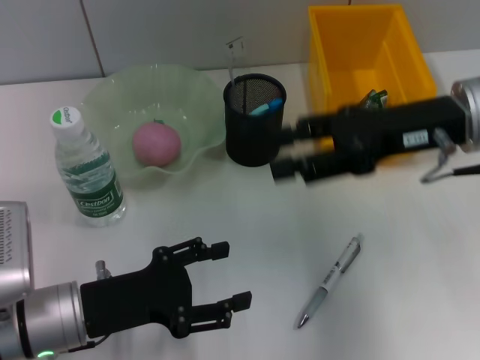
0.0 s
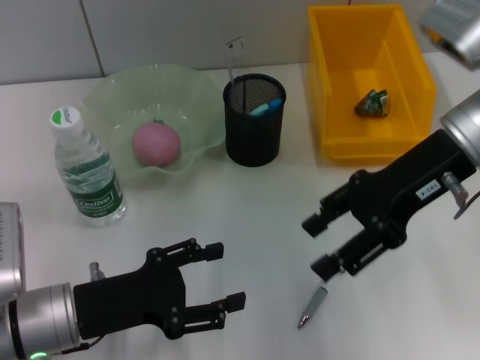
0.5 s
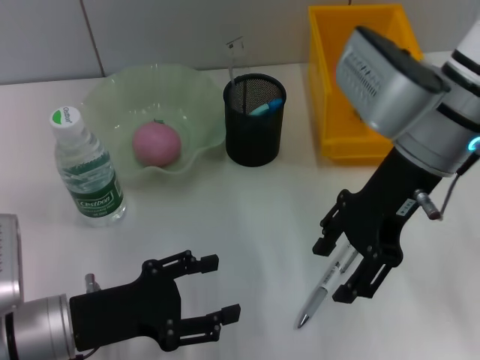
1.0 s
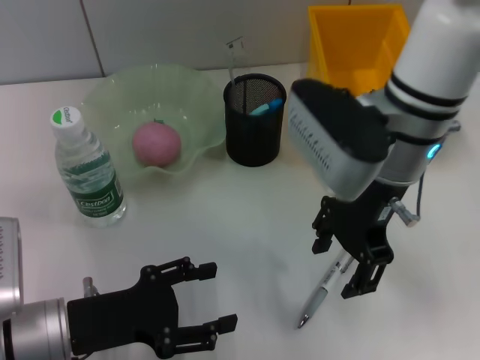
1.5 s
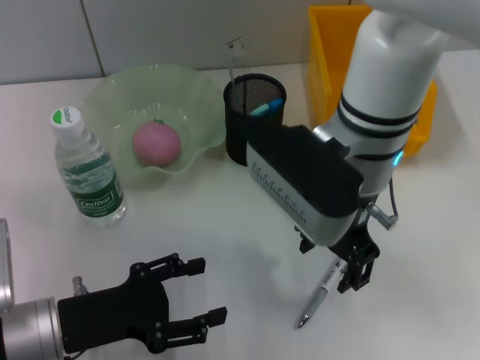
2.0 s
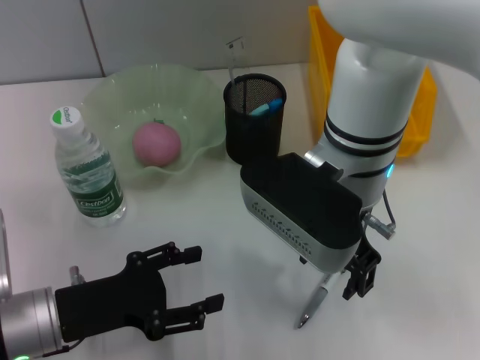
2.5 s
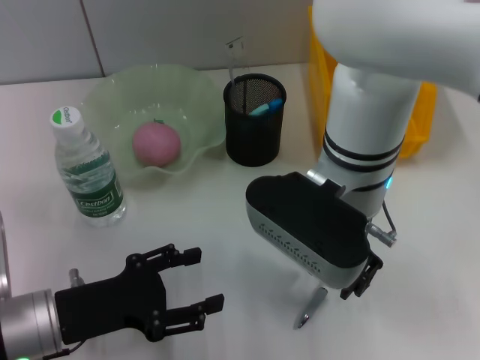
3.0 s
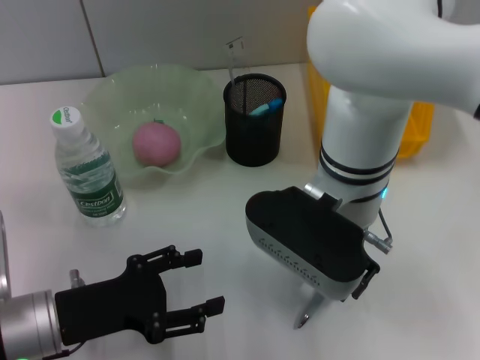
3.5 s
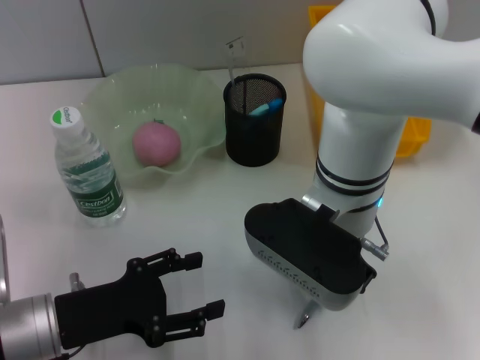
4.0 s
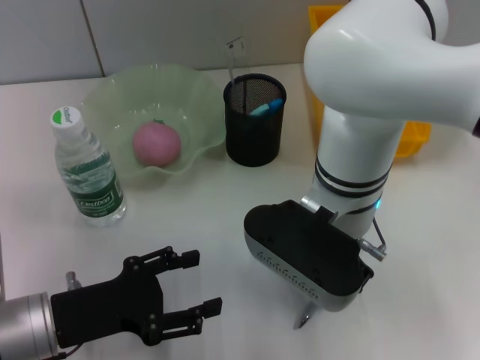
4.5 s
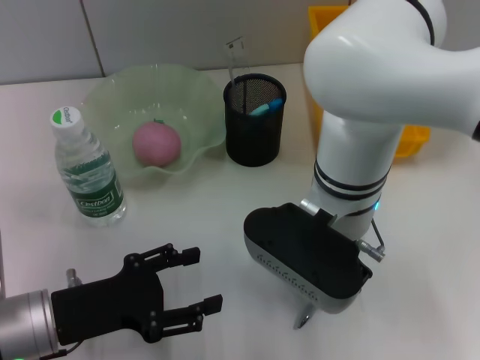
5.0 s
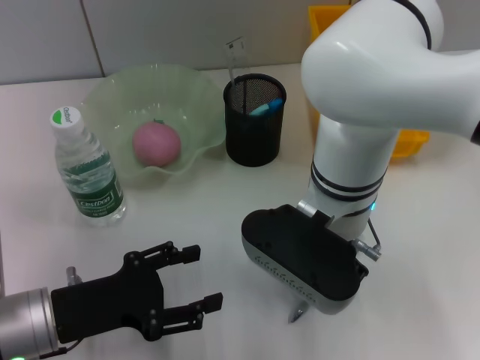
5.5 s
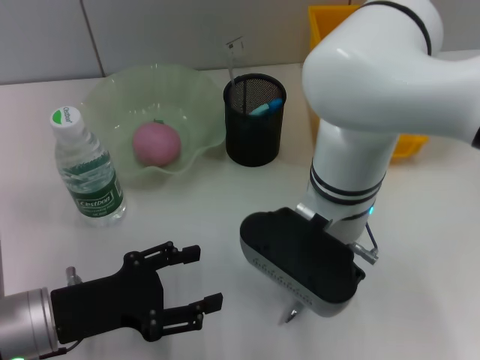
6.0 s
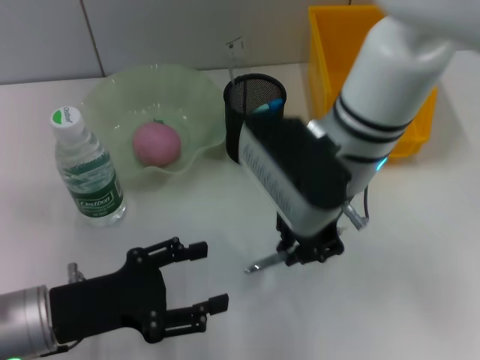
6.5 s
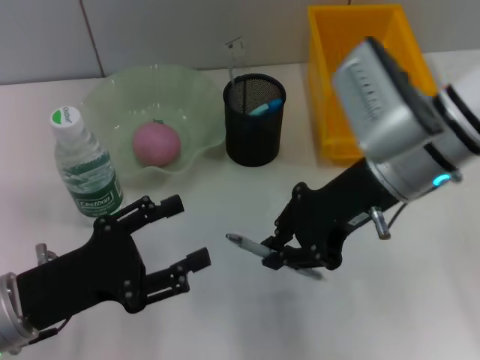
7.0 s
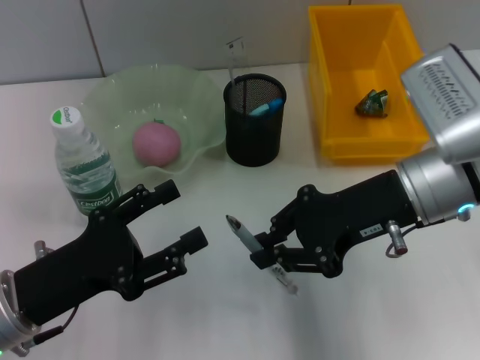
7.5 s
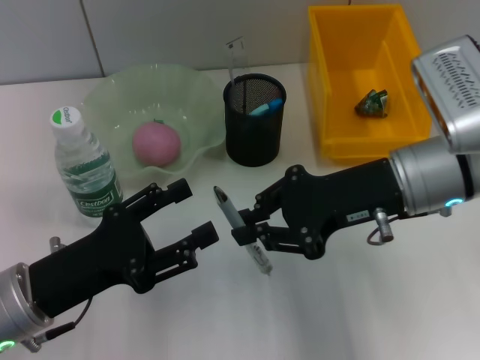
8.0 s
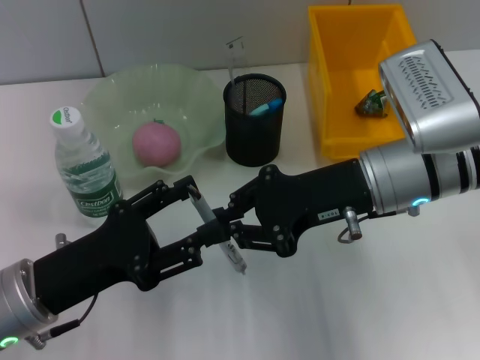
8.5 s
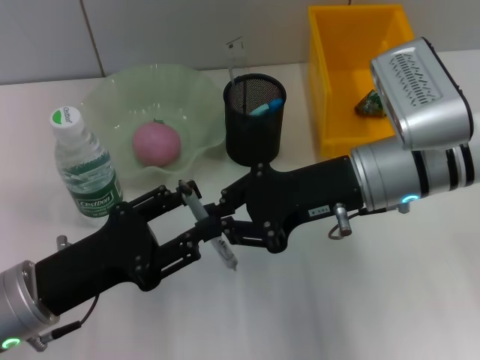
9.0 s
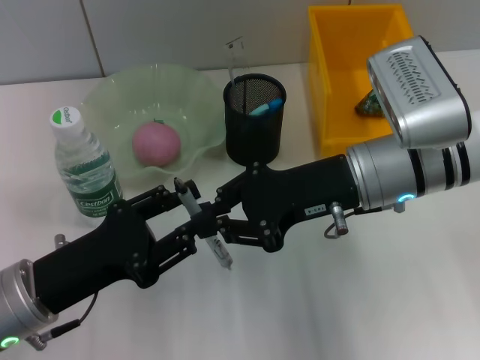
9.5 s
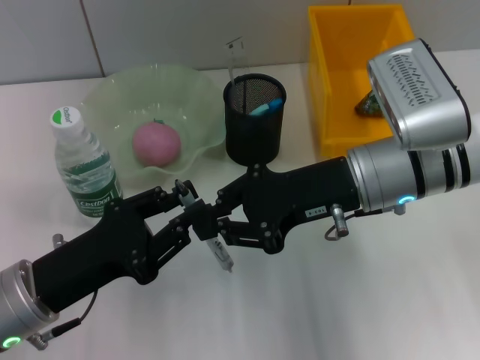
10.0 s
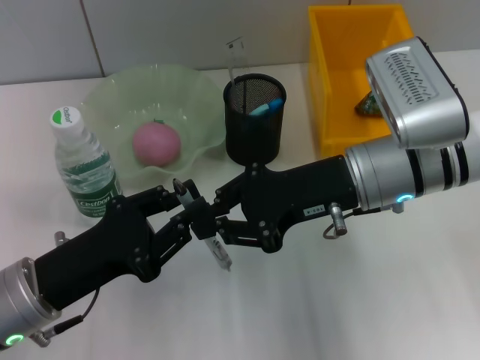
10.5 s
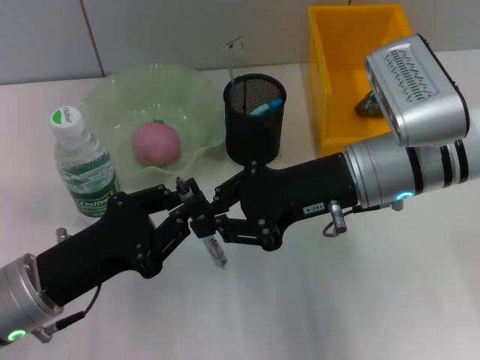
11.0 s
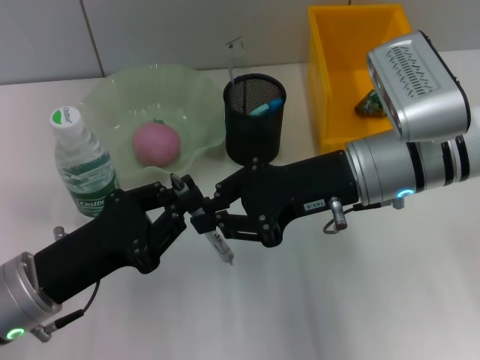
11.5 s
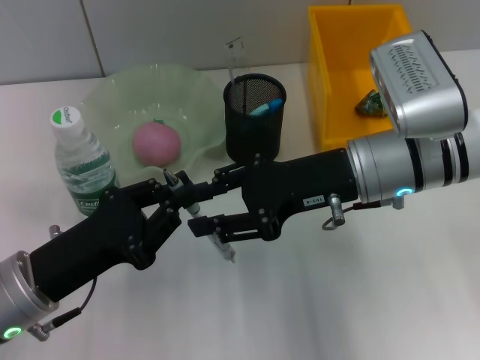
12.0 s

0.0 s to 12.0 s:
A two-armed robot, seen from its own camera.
Step, 0.0 to 5.5 s: Grab the gray spring-action pen with the right hand.
Step, 6.0 to 11.0 s: Pass the gray spring-action pen from the right hand to the left hand.
0.0 to 2.0 s: The right gripper goes about 15 cm to the left.
4.0 to 6.0 s: The right gripper closes up.
6.0 to 8.0 s: The right gripper moves to the right, about 10 cm.
8.0 to 10.0 s: The left gripper closes up.
10.0 to 12.0 s: The left gripper closes.

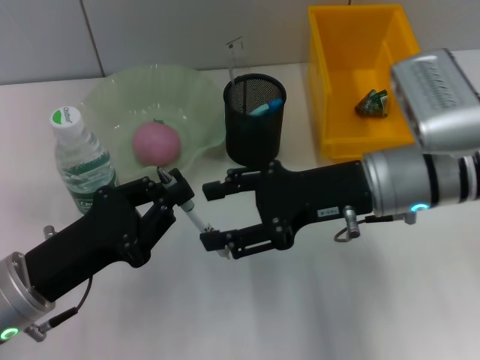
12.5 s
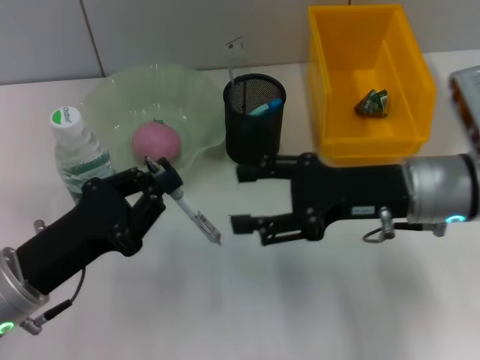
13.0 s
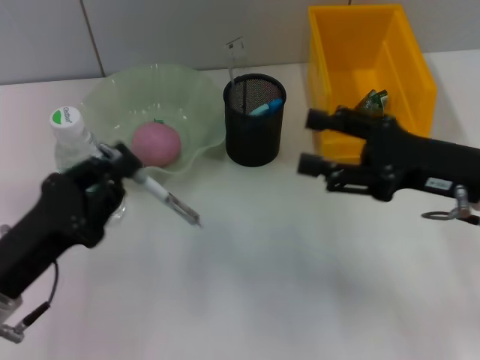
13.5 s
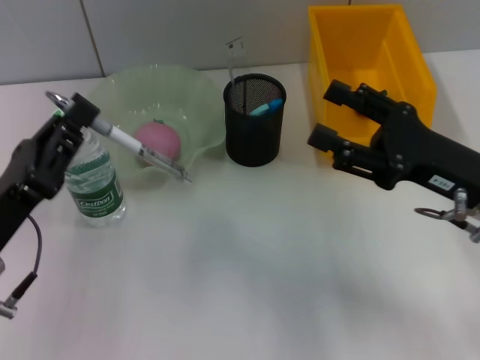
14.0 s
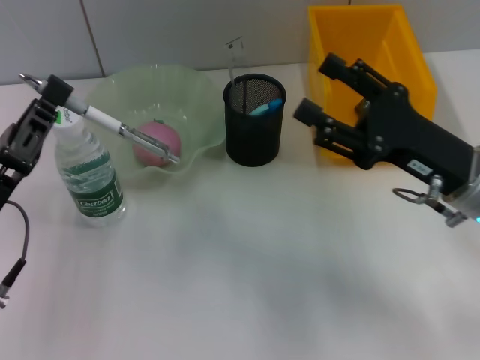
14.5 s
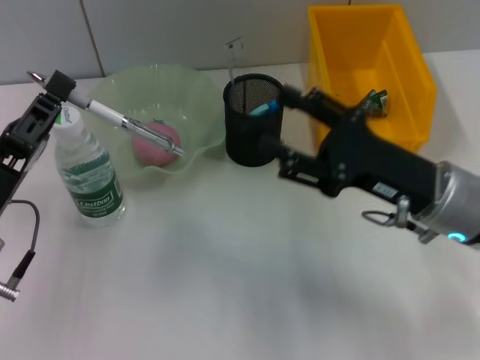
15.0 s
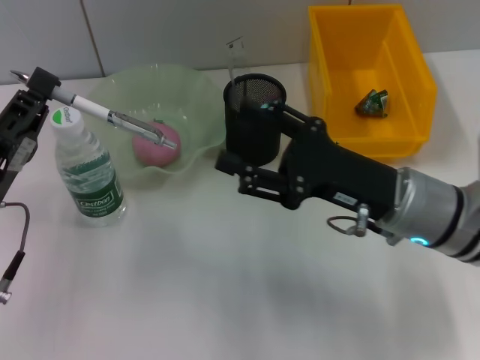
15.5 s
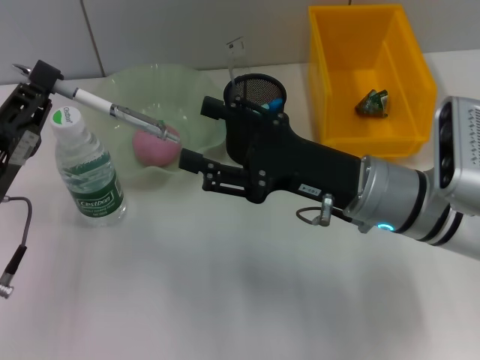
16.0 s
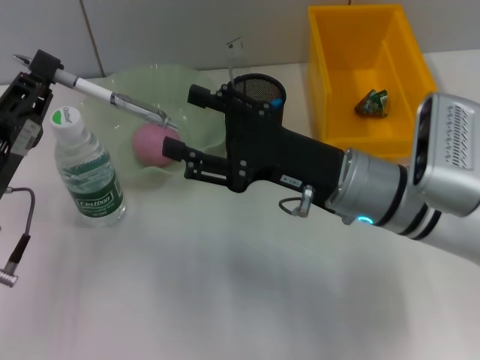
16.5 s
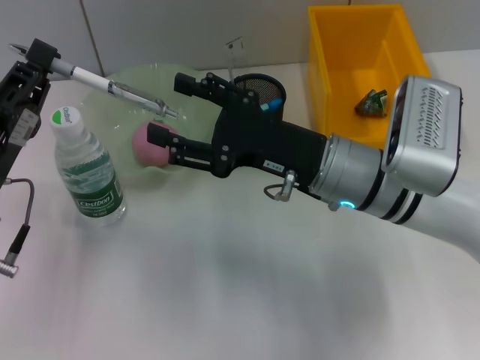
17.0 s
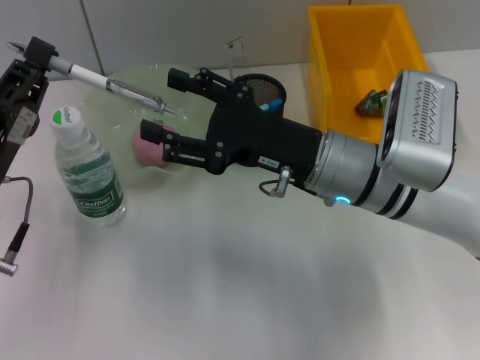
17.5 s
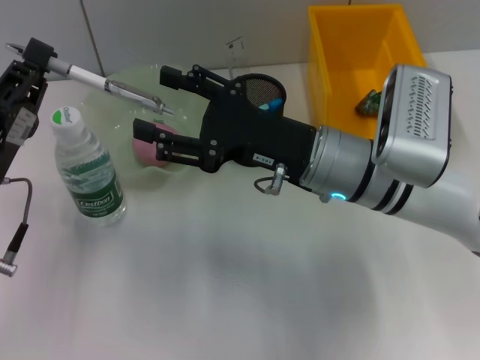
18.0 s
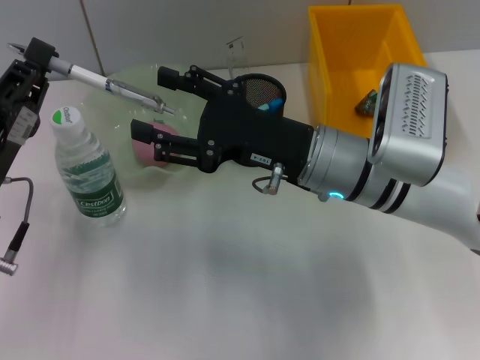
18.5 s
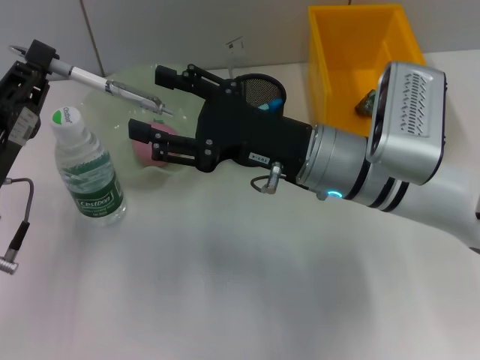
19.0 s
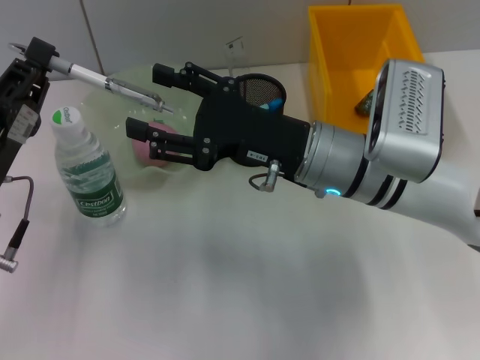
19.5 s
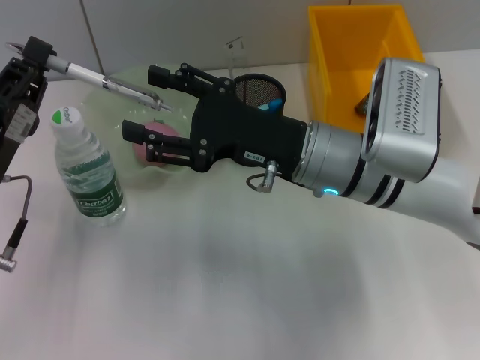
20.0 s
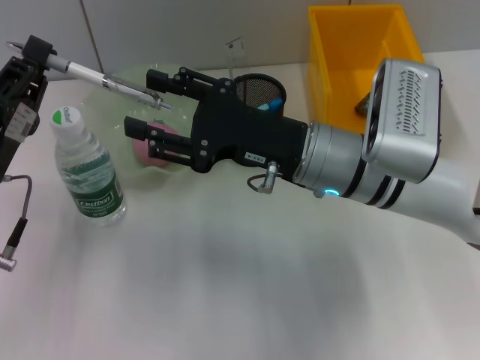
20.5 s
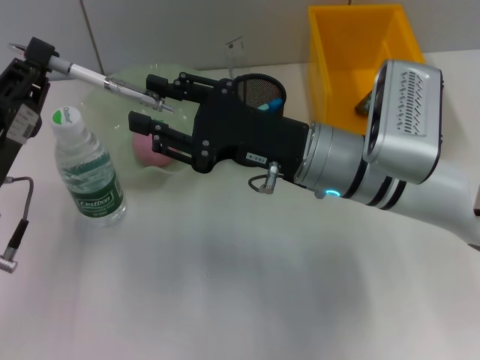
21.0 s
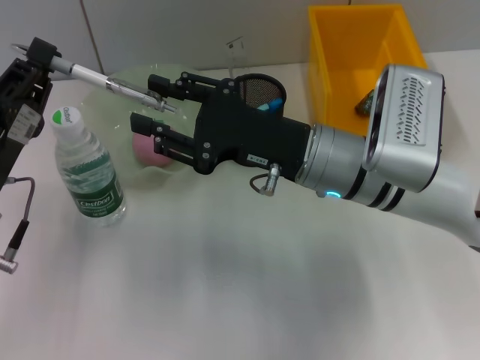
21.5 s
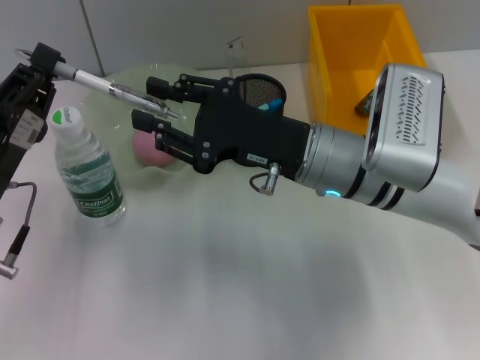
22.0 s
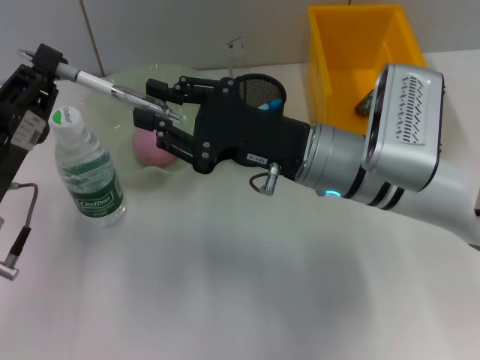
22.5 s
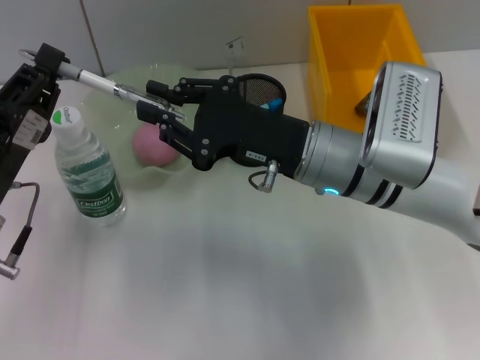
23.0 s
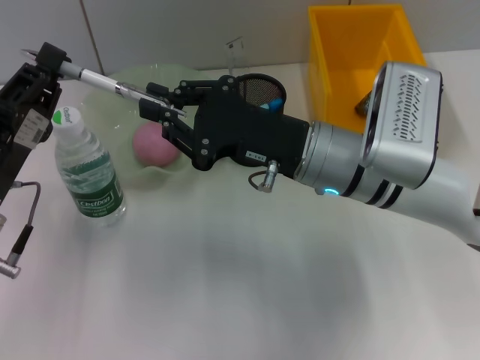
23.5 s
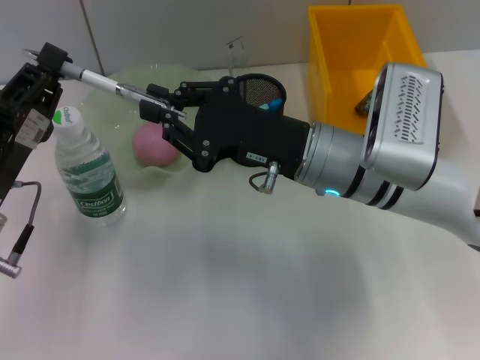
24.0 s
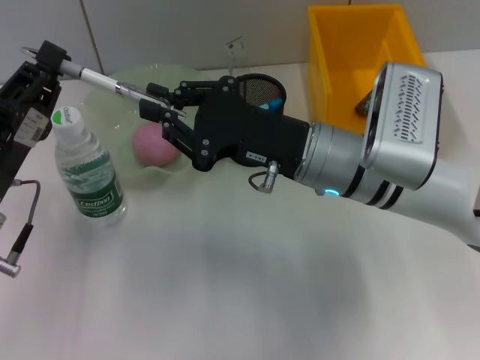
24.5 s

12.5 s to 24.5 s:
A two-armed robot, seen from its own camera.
Step, 12.5 to 24.0 s: Pass the gray spring-action pen from the left hand to the right hand.
12.5 to 14.5 s: The right gripper goes some 5 cm to the right.
14.5 to 16.5 s: The right gripper shifts about 10 cm to the left.
16.5 to 18.5 s: There are only small adjustments of the grippers.
18.5 to 20.5 s: Both grippers stay put.
20.5 to 22.5 s: The right gripper closes.
22.5 to 24.5 s: The two grippers keep their place.

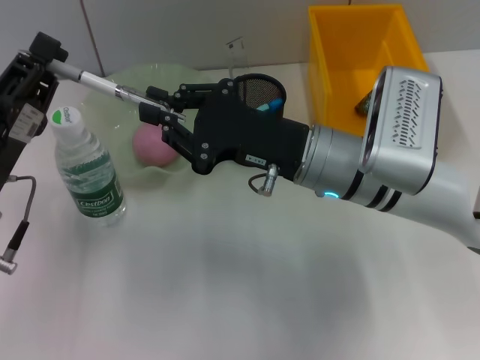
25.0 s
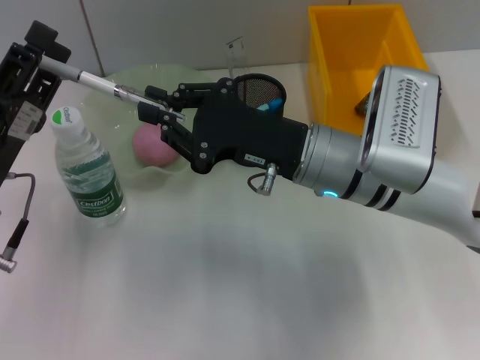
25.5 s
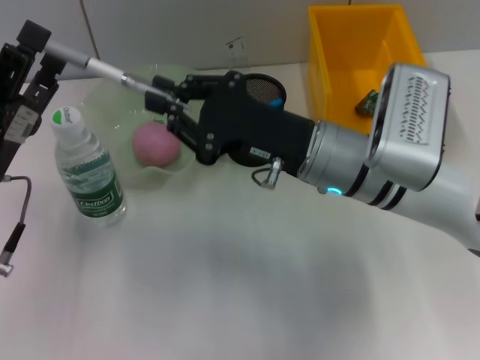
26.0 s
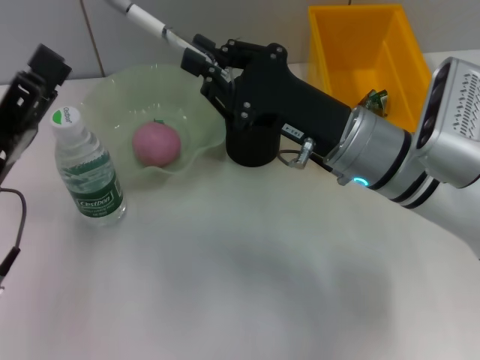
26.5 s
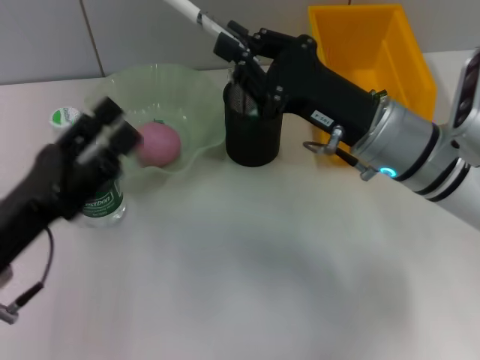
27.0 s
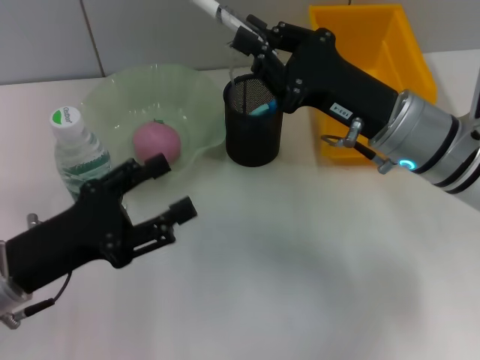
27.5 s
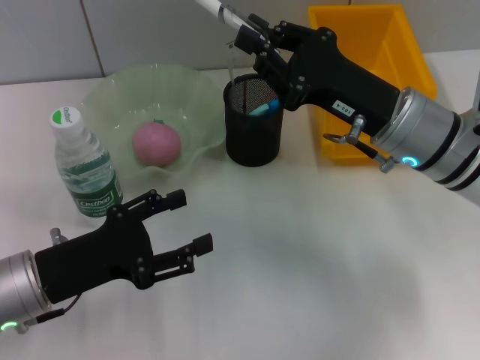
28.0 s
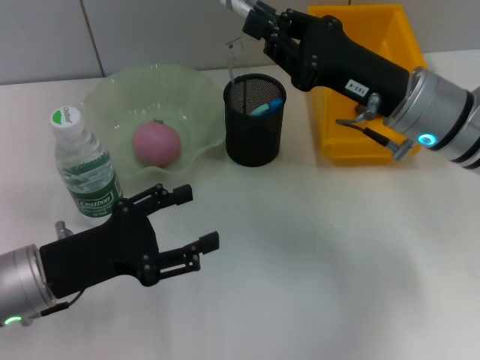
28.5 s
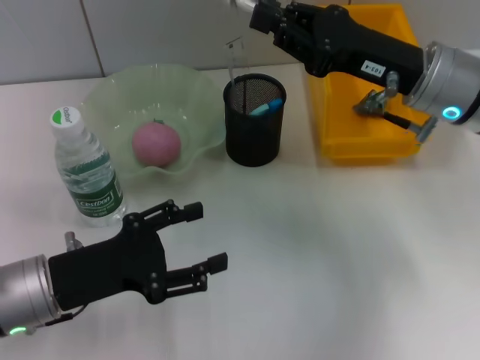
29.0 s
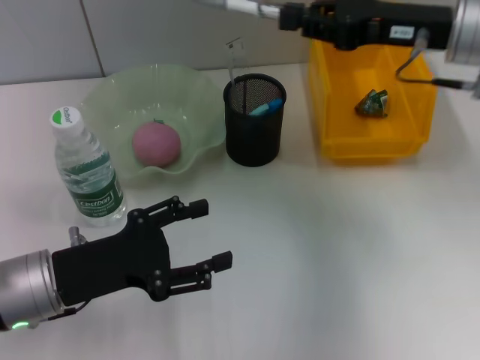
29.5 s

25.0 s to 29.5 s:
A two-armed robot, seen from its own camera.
25.0 to 27.0 s: The left gripper opens up.
27.0 to 29.5 s: The right gripper heads upward, to the right and forward, covering some 15 cm.
